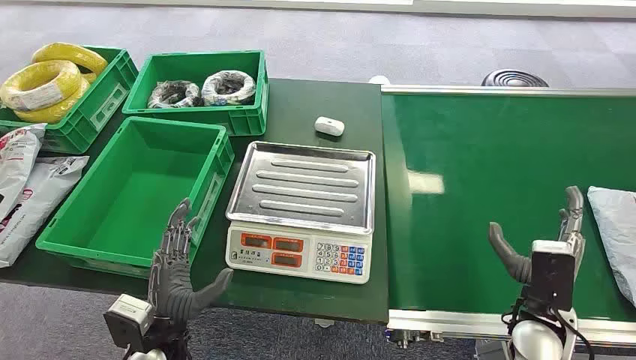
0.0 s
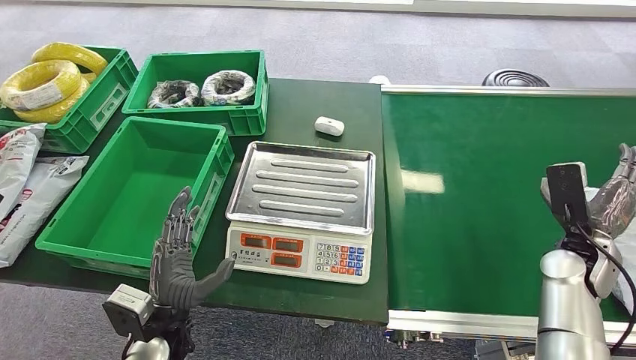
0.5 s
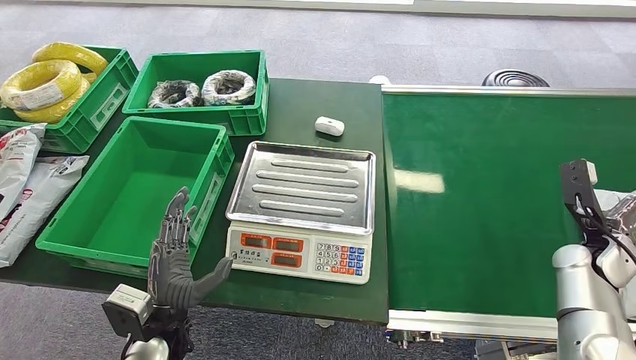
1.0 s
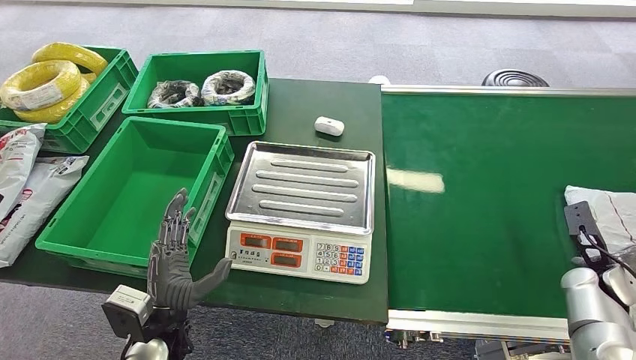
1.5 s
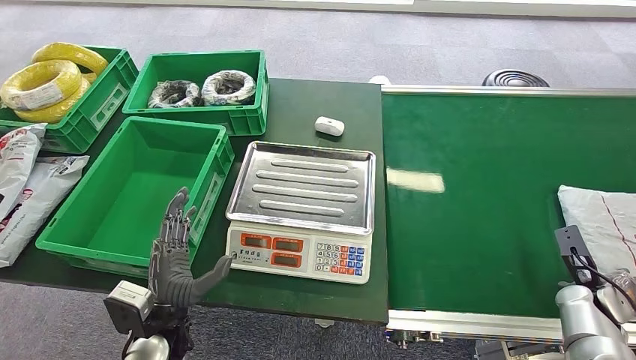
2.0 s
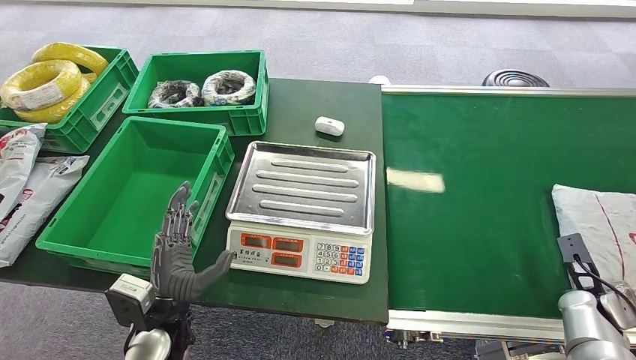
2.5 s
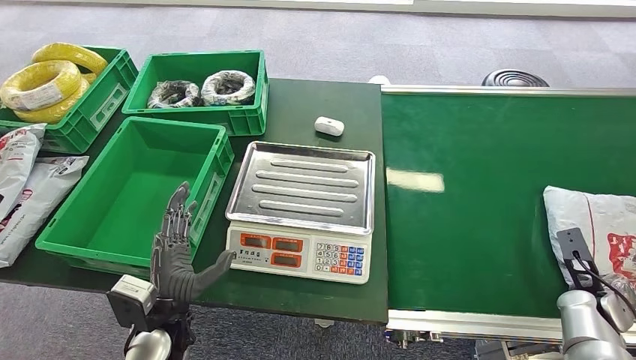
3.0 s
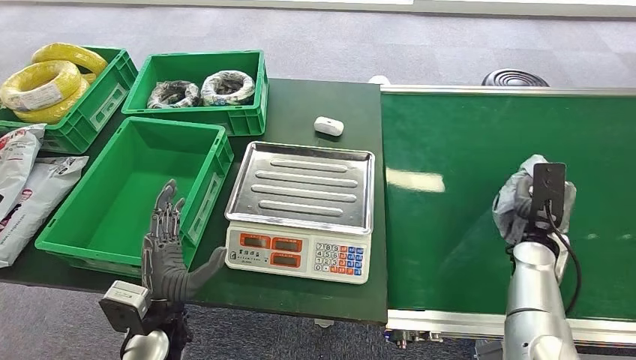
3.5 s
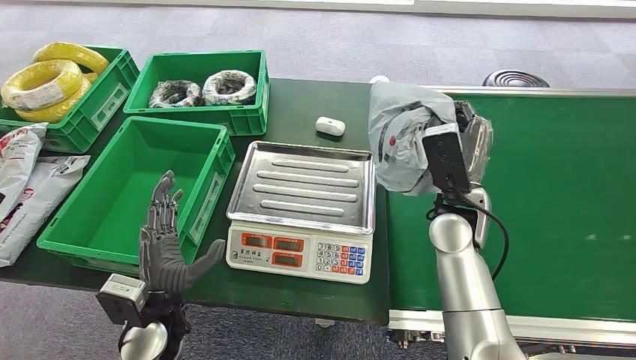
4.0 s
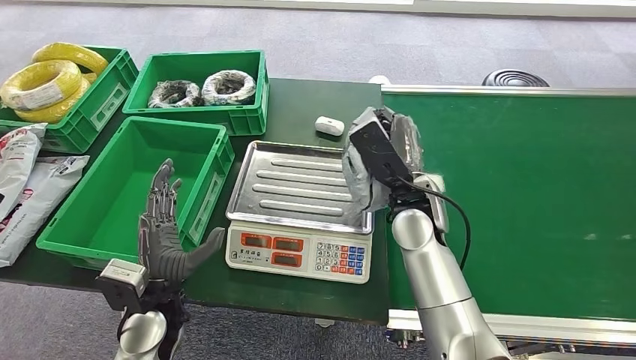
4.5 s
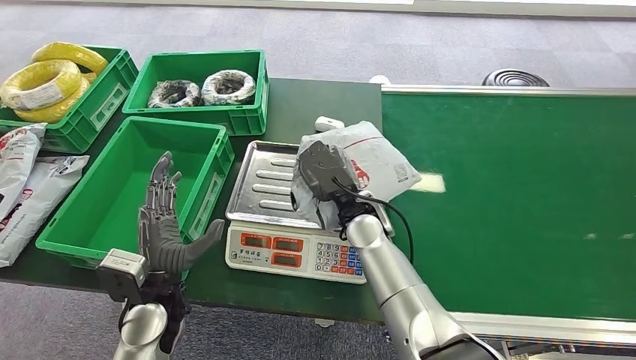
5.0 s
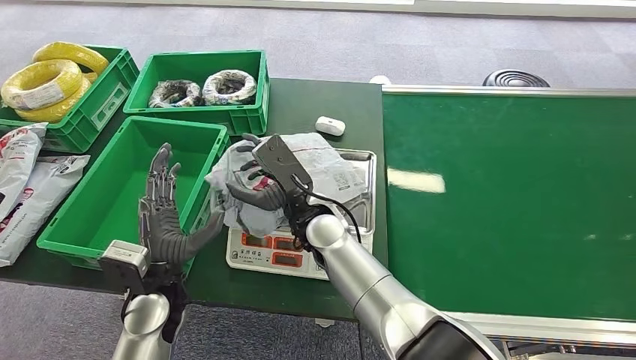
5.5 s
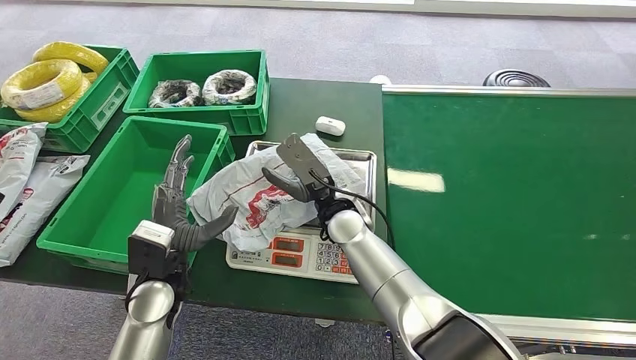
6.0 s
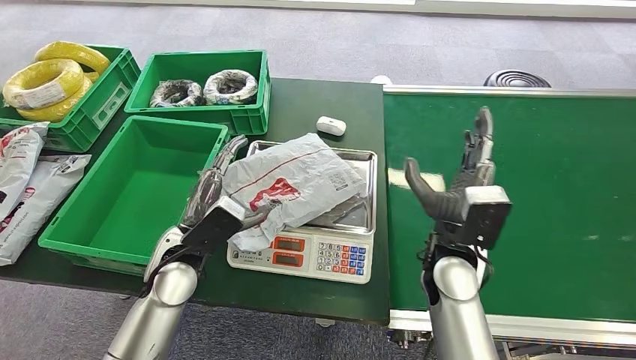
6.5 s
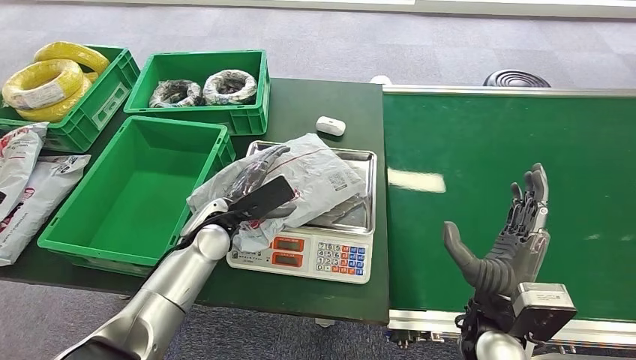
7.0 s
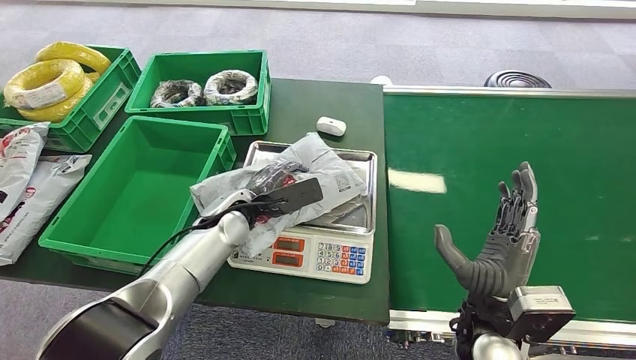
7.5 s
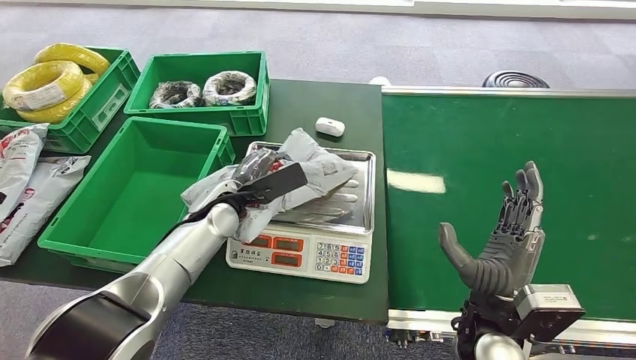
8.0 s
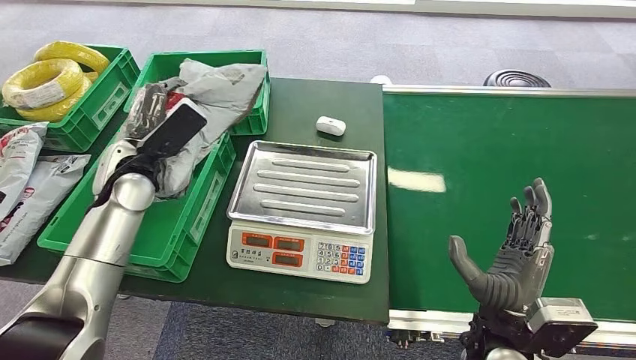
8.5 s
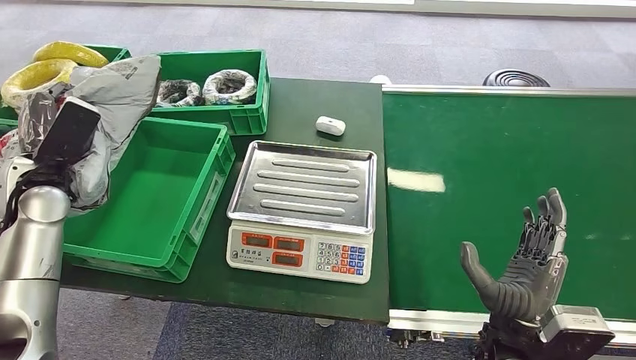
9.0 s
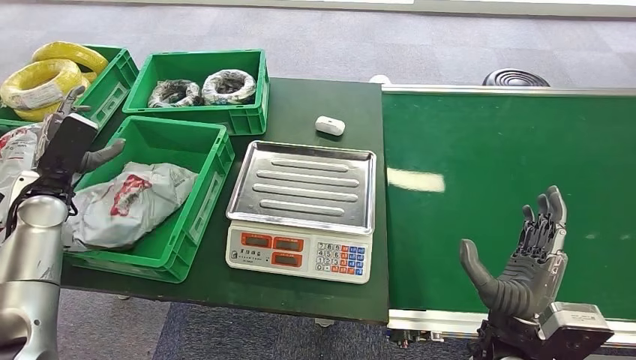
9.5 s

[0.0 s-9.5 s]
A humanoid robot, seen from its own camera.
Step, 0.0 to 3.5 s: Pick up the package from the conveyor belt.
Step, 4.0 to 5.5 s: Place the package onto the inbound machine.
Step, 6.0 to 8.0 s: Pick up the package from the inbound machine.
Step, 9.0 to 9.5 s: Place the package into the parcel locker.
2.0 to 4.0 s: The right hand heads to the left and upward, covering some 30 cm.
